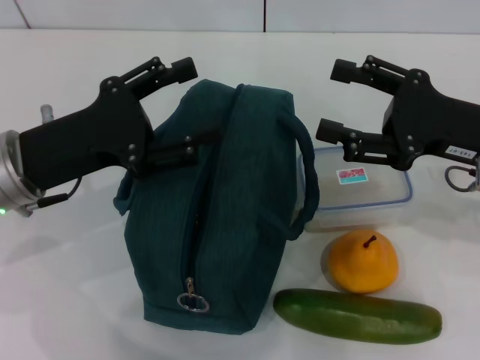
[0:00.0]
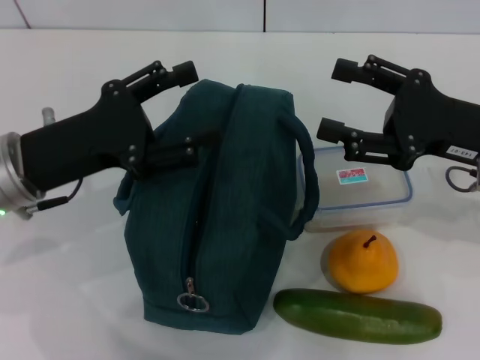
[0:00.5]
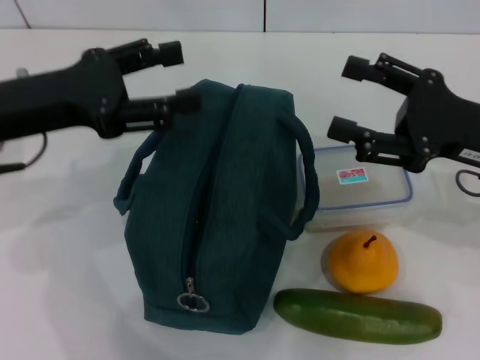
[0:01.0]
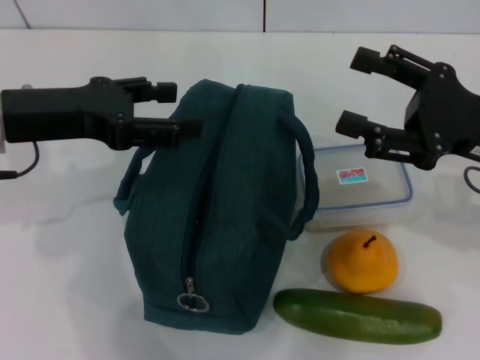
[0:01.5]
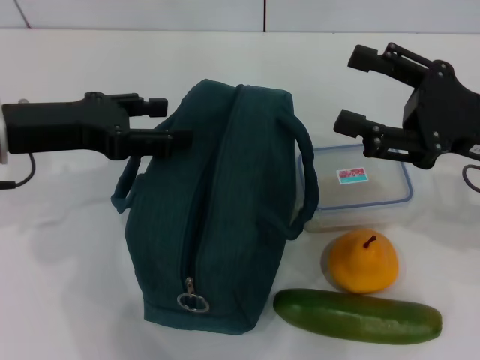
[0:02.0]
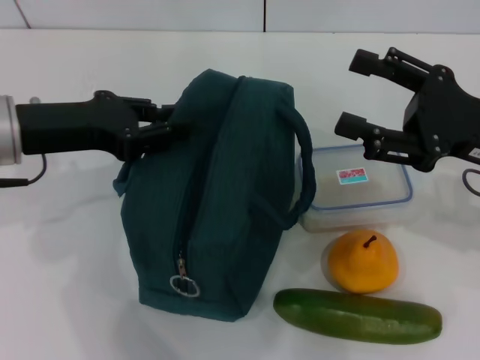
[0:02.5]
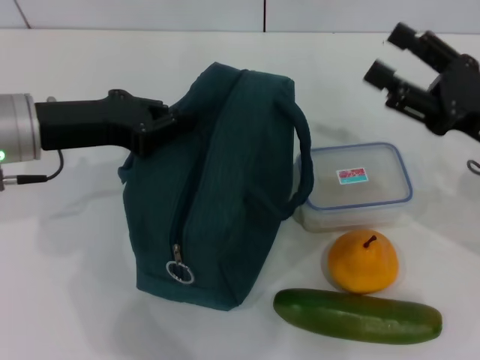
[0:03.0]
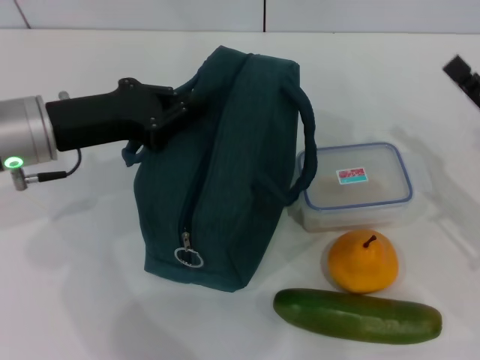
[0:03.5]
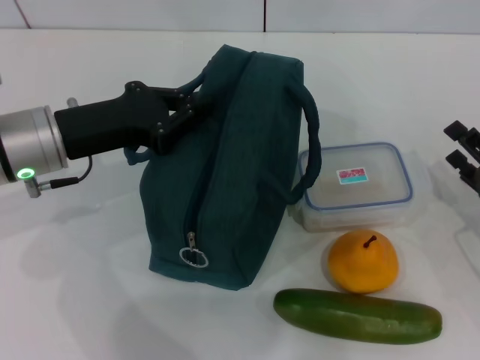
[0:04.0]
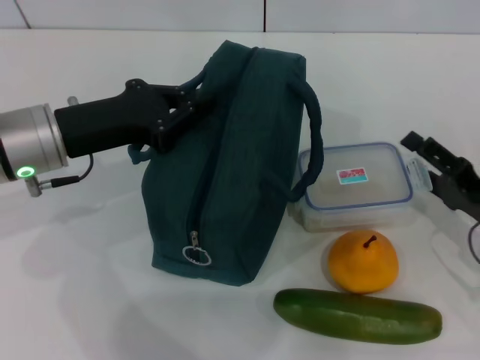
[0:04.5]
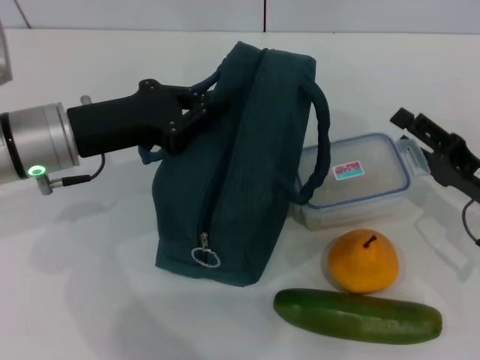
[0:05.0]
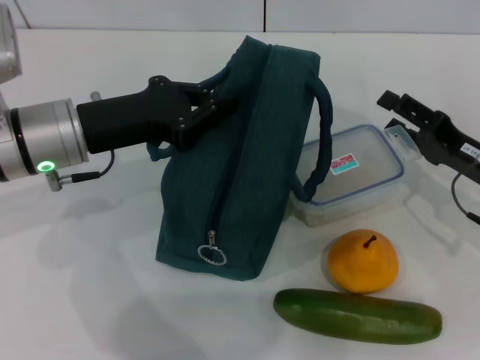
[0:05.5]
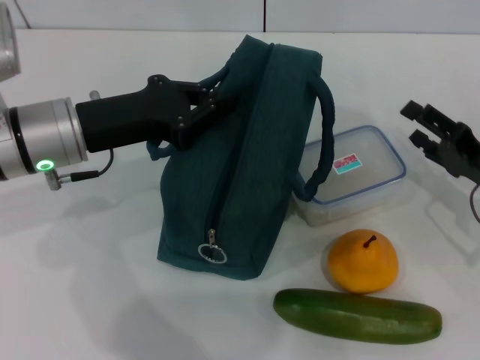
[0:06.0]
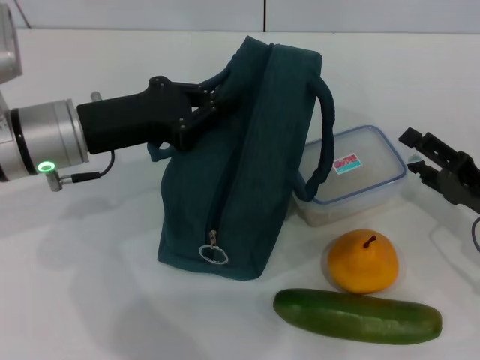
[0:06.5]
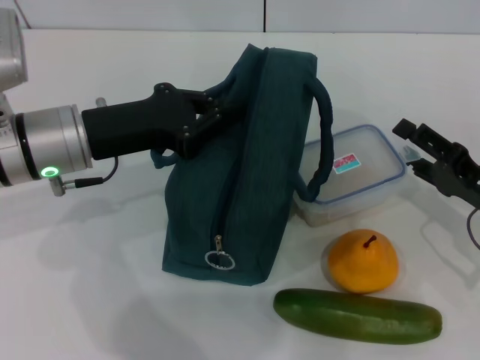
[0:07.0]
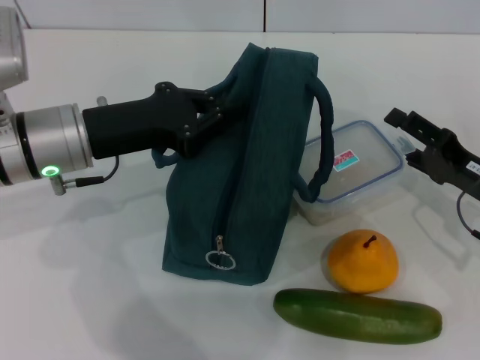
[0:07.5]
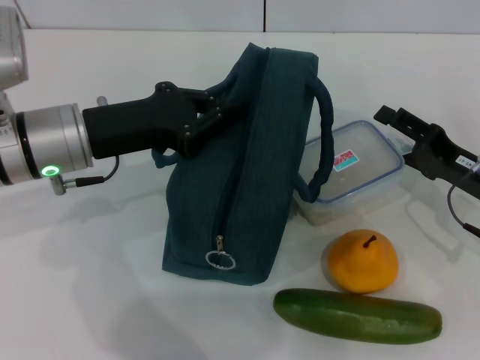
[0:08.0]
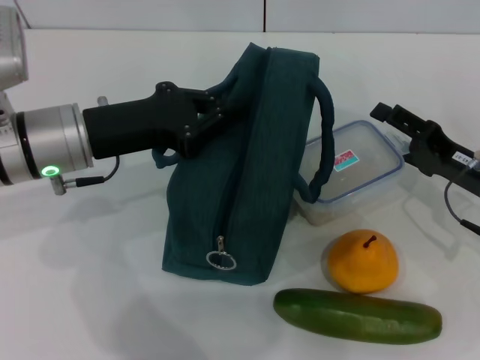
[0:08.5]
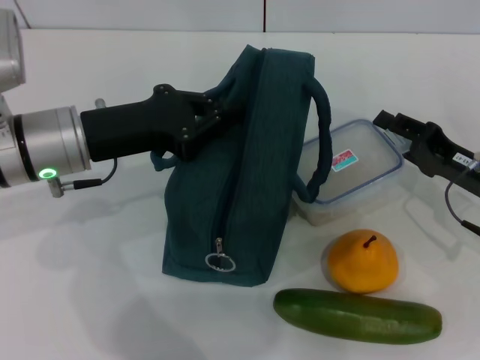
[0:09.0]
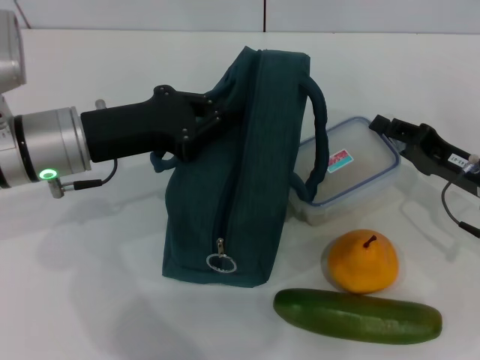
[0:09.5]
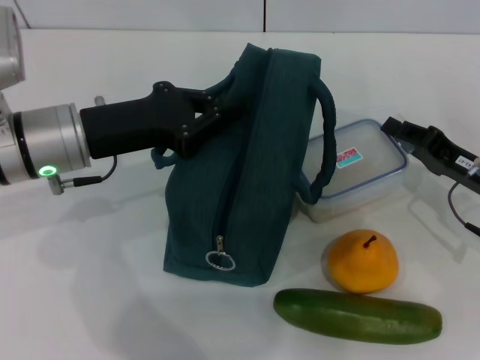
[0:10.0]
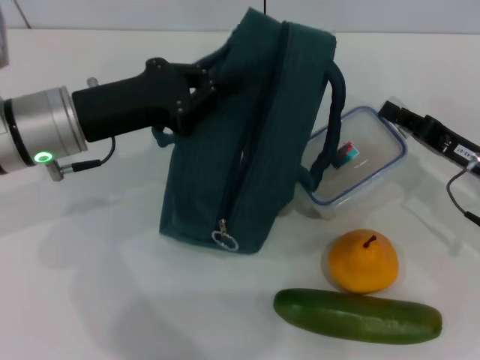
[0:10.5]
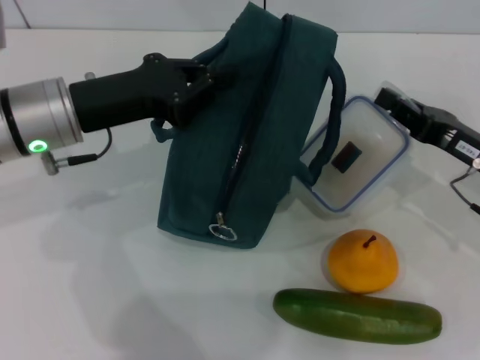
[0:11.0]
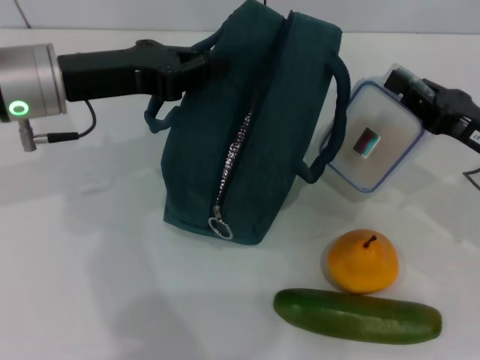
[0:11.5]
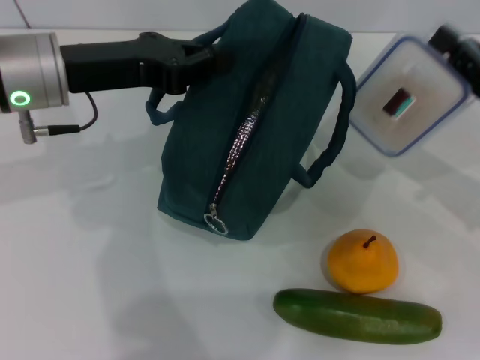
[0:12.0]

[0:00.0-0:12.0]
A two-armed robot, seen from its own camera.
Step, 0:00.0 to 0:04.0: Hold the lunch bag with your left hand.
Step, 0:04.5 to 0:10.0: Pick up the lunch box with your right hand.
0:00.0 to 0:02.0: The left gripper changes place by approximately 5 cm.
0:02.0 to 0:04.0: The left gripper shifts by approximately 5 cm, and closes its fingers; the right gripper goes roughly 15 cm downward and to the right.
0:04.0 to 0:06.0: The right gripper changes place by roughly 5 cm.
0:06.0 to 0:08.0: The grippers stay close to where they were, moving slightly.
0:08.0 to 0:10.0: The right gripper closes up.
0:10.0 to 0:12.0: Both grippers travel together upward, roughly 5 cm.

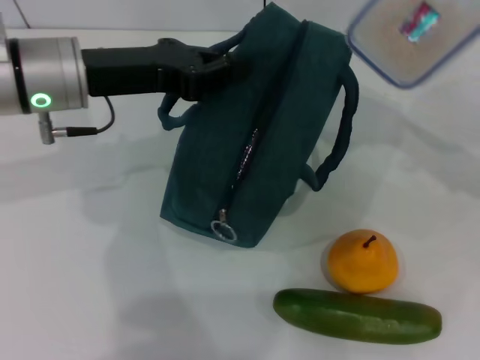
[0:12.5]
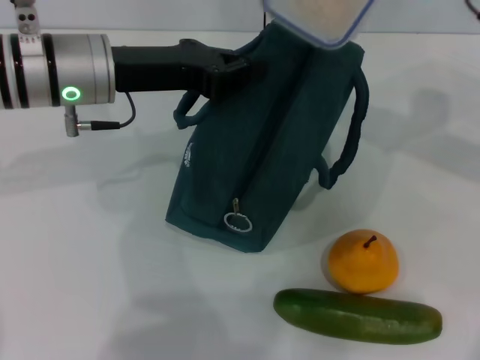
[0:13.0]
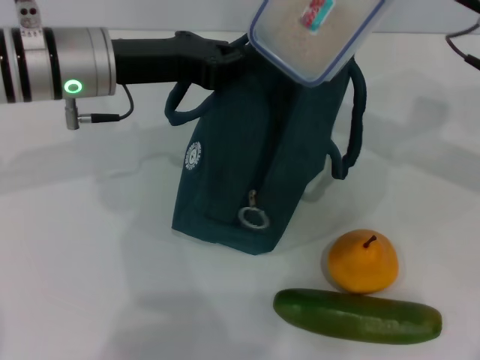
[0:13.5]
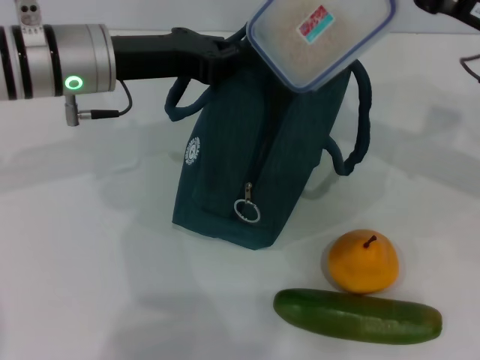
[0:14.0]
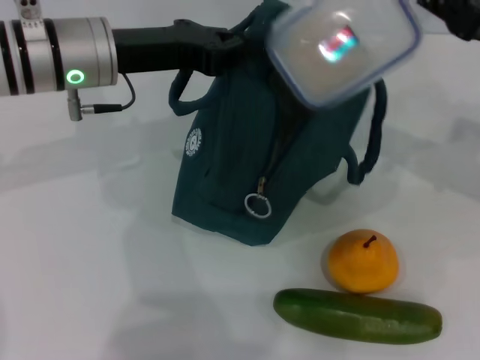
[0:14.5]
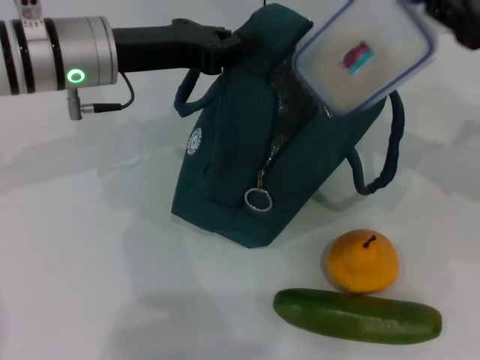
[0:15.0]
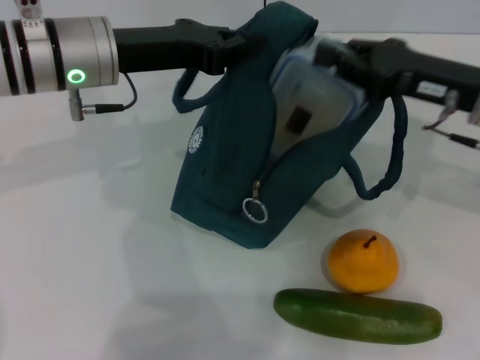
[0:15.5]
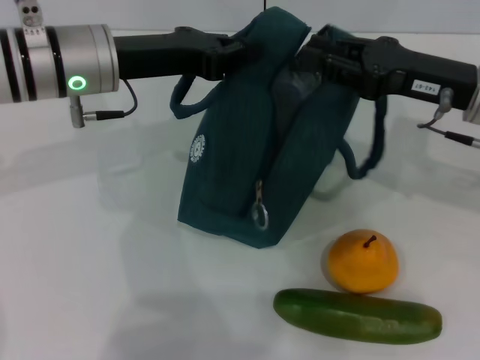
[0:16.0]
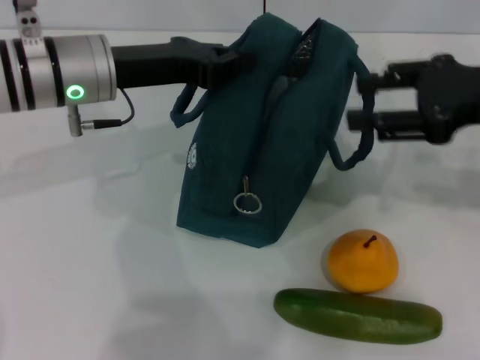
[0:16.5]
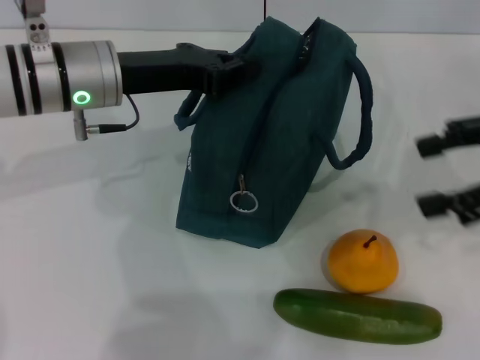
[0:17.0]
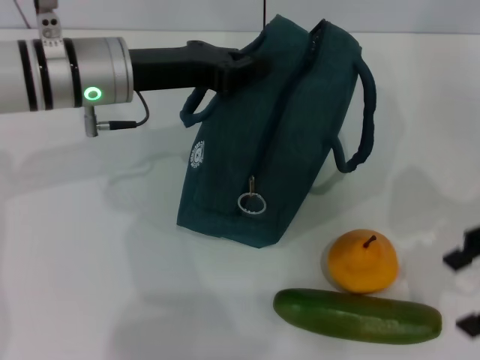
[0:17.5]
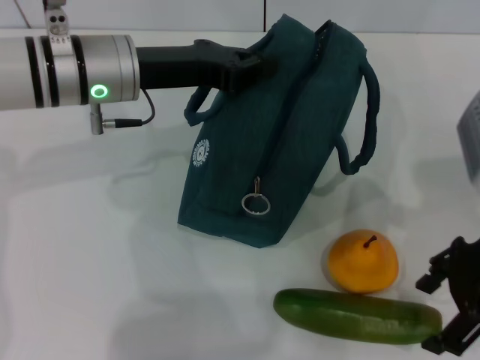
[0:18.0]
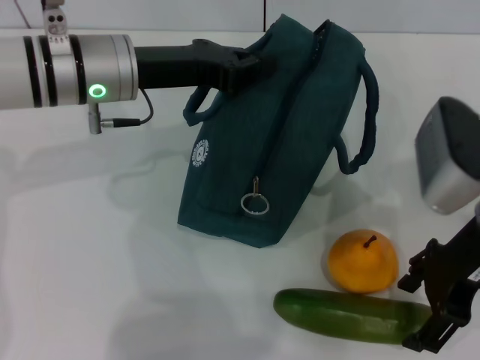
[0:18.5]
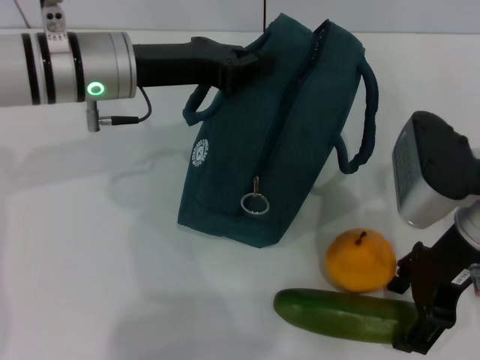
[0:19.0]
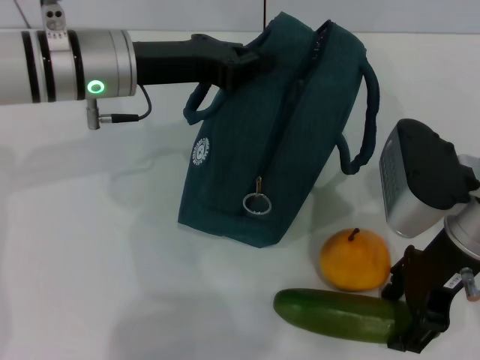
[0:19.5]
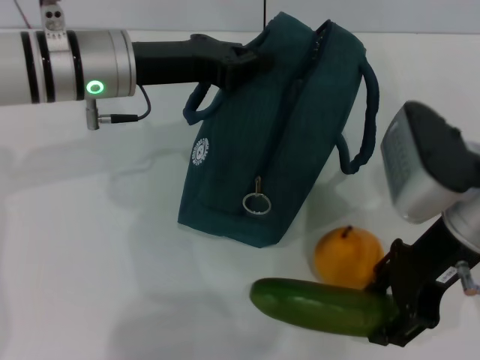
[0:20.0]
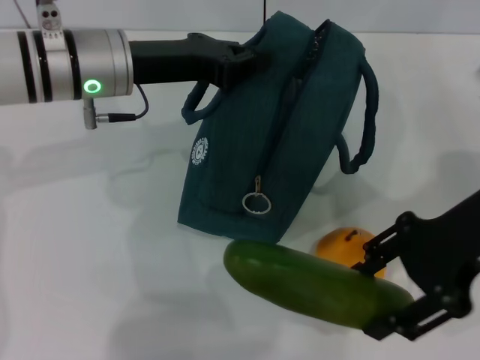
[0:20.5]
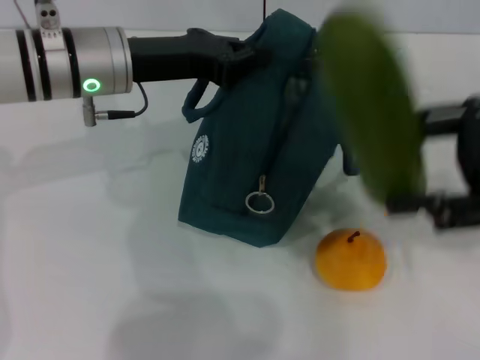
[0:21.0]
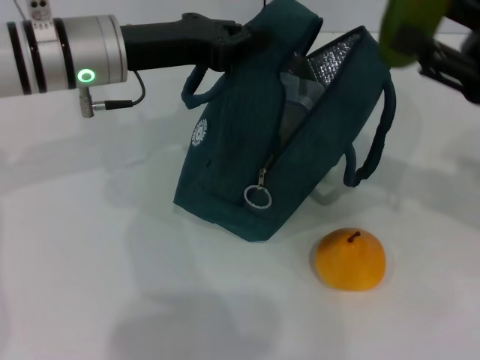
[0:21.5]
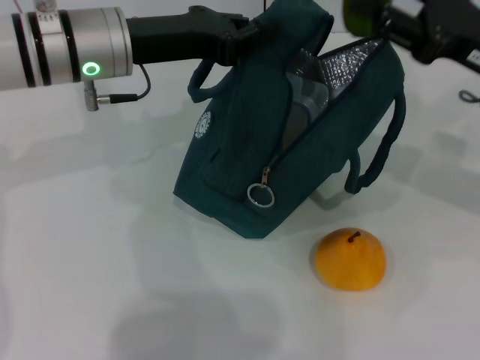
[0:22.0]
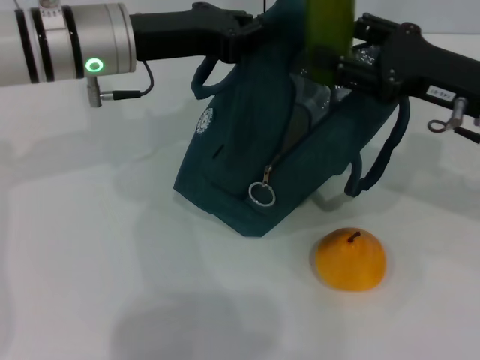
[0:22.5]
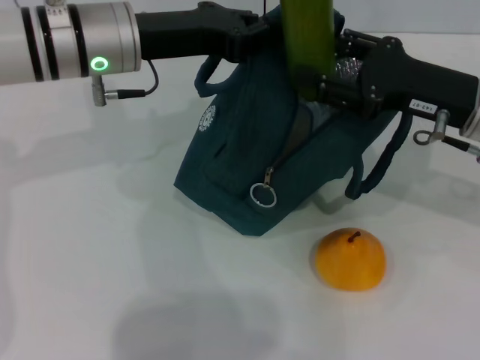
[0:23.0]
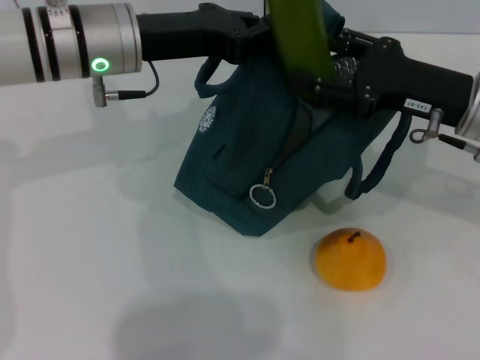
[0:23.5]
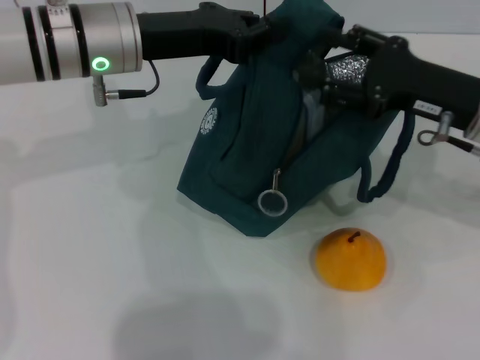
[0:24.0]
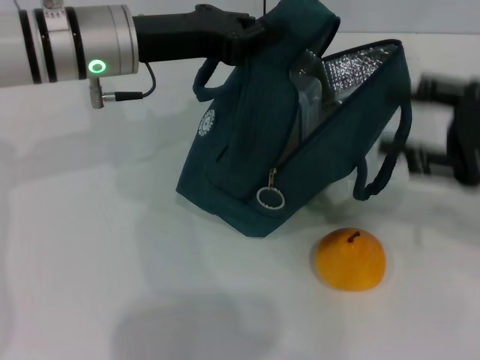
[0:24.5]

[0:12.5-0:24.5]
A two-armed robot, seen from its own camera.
Step, 0:12.5 to 0:16.0: Place the lunch box into the lunch bag with your right hand.
Step, 0:16.5 to 0:19.0: Pick up the cucumber with your right hand.
Step, 0:20.0 to 0:24.0: Put the cucumber into the lunch bag with your right hand.
0:14.5 to 0:16.5: The right gripper moves approximately 5 cm, and opens.
0:16.5 to 0:18.5: The right gripper shifts roughly 10 cm to the left and downward.
0:20.5 to 0:22.5: The right gripper is displaced forward and downward by roughly 10 cm.
0:22.5 to 0:24.5: The right gripper travels to the right and backward by about 10 cm.

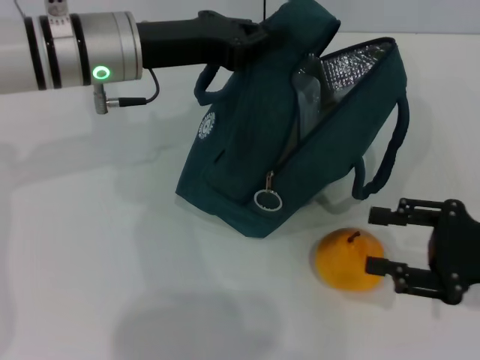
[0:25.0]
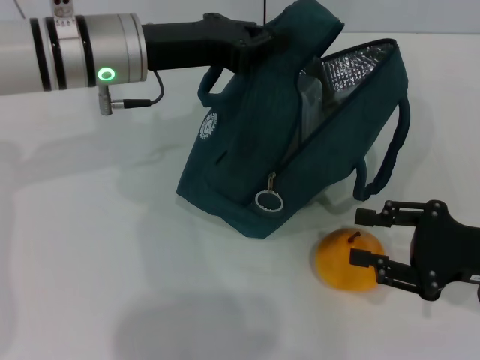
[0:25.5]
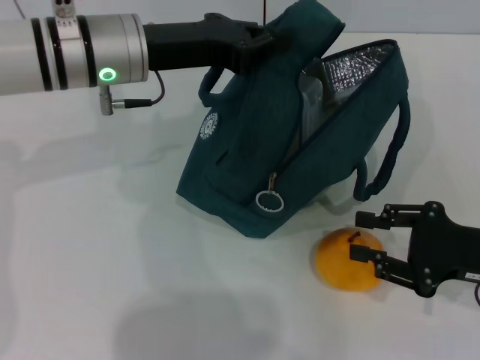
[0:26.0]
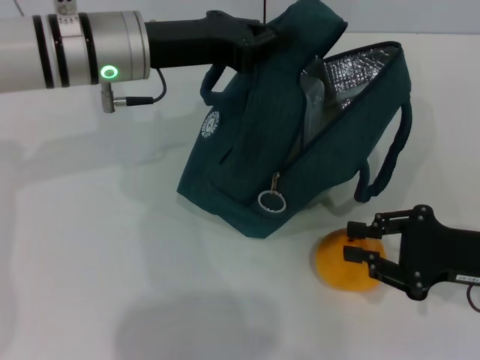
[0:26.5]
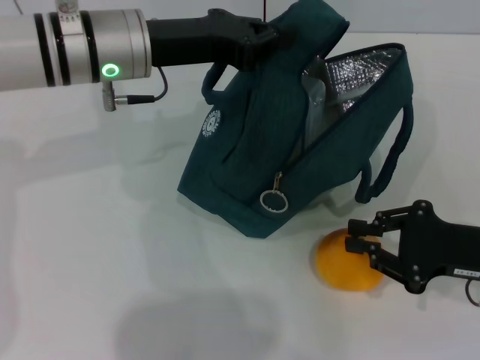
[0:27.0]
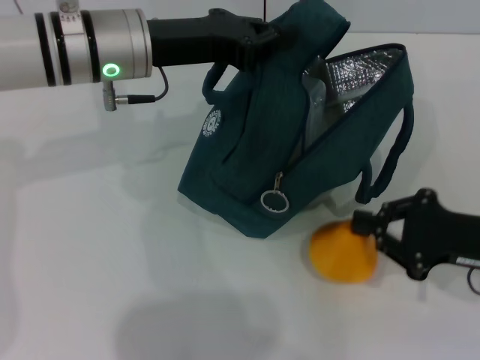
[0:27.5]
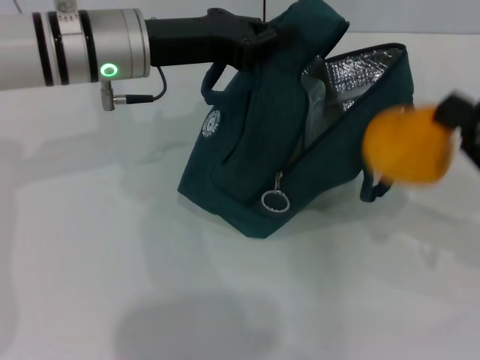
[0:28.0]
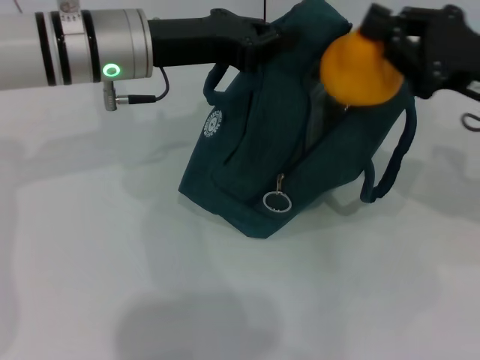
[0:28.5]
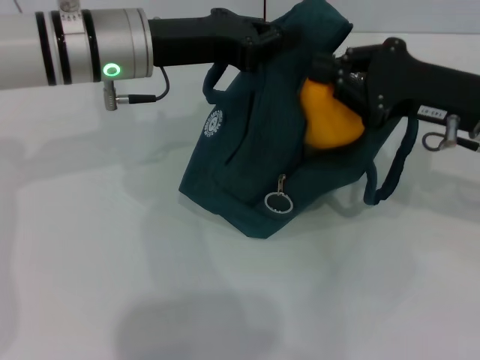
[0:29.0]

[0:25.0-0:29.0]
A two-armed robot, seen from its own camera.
Step, 0:25.0 to 0:27.0: Grab the pear with your right hand.
0:25.0 to 0:27.0: The right gripper closes its fingers.
0:27.0 to 0:29.0: The right gripper heads forward and upward, covering roughly 10 cm.
